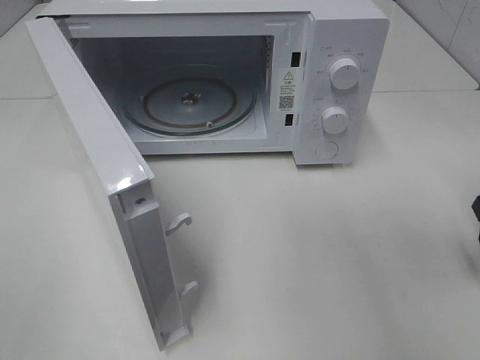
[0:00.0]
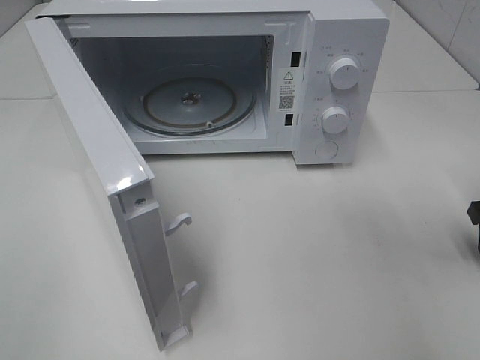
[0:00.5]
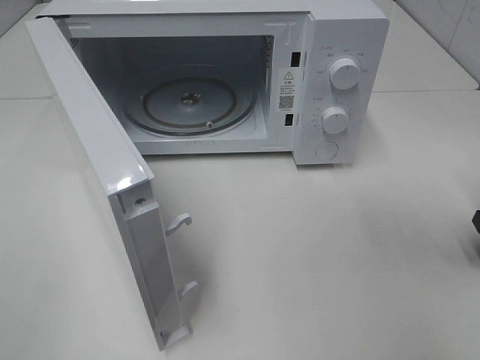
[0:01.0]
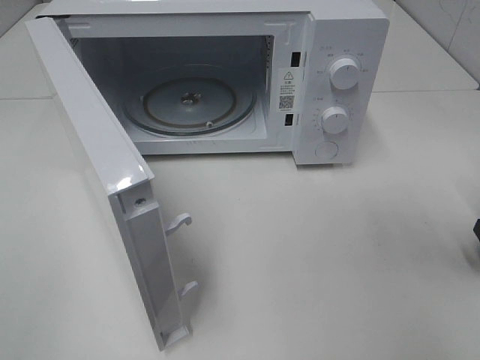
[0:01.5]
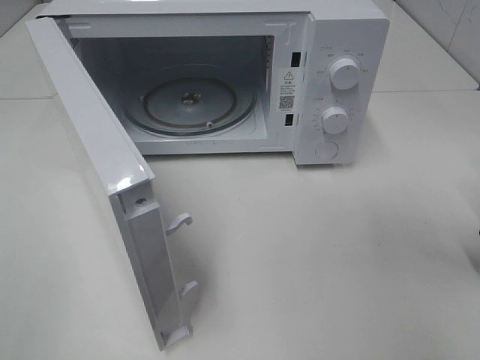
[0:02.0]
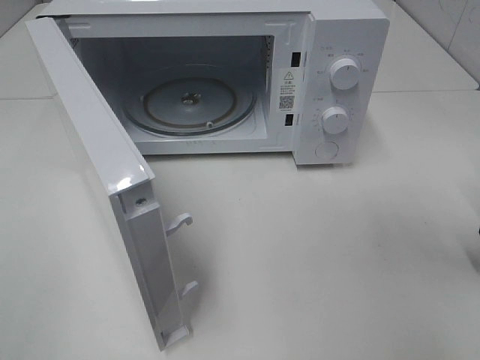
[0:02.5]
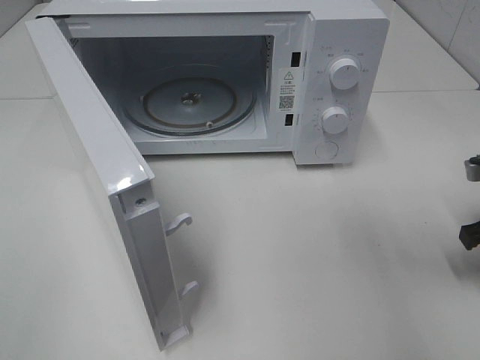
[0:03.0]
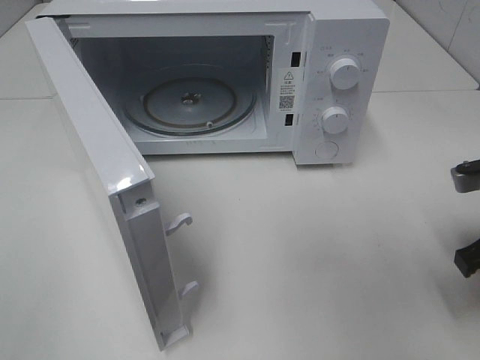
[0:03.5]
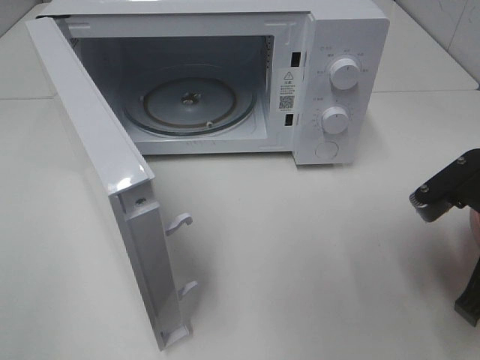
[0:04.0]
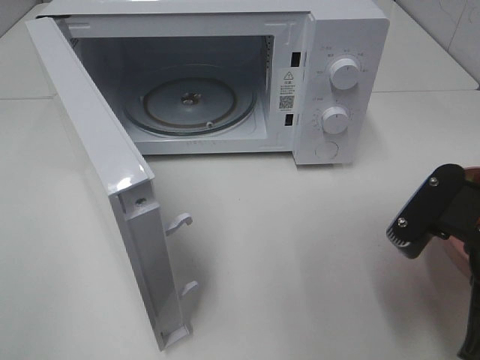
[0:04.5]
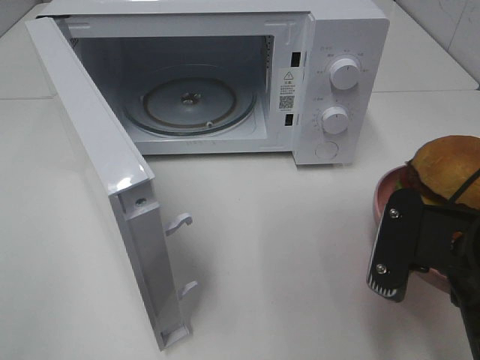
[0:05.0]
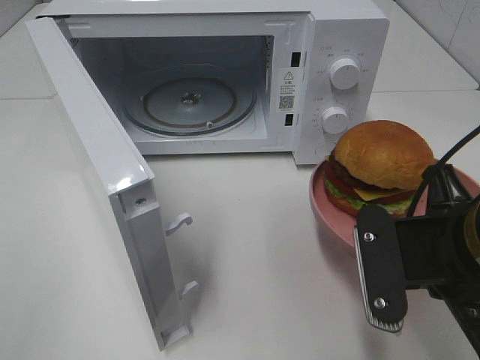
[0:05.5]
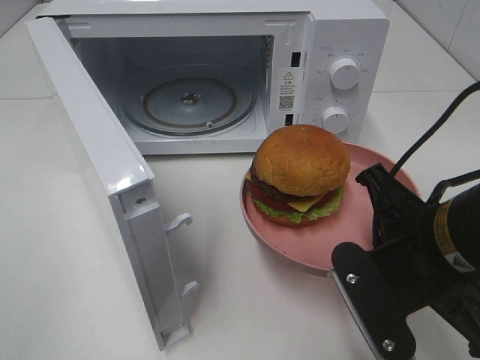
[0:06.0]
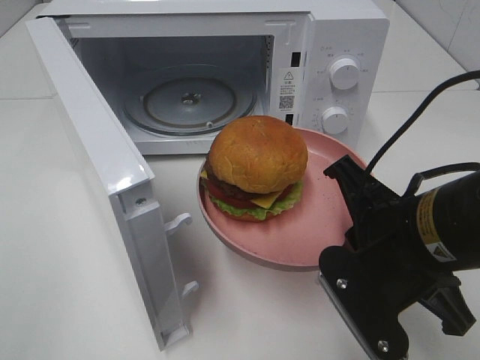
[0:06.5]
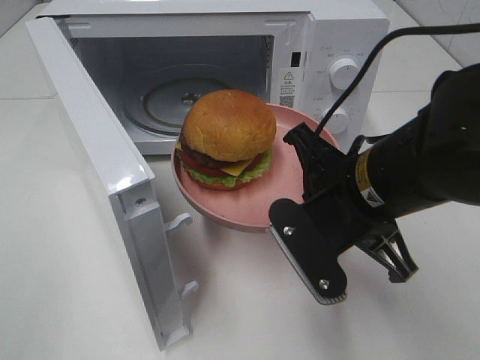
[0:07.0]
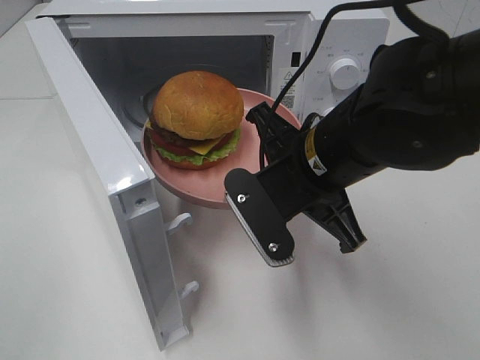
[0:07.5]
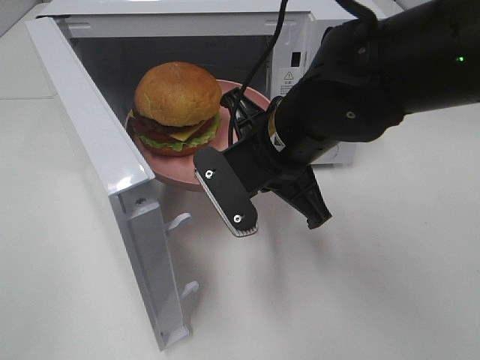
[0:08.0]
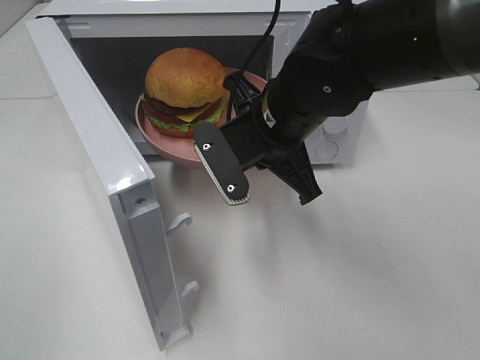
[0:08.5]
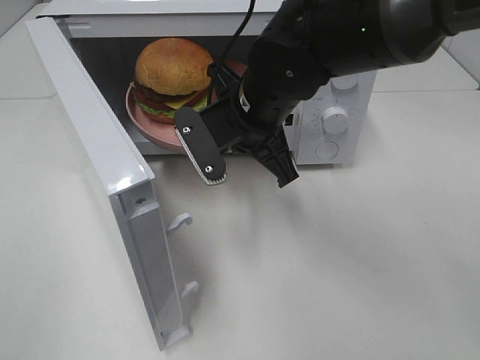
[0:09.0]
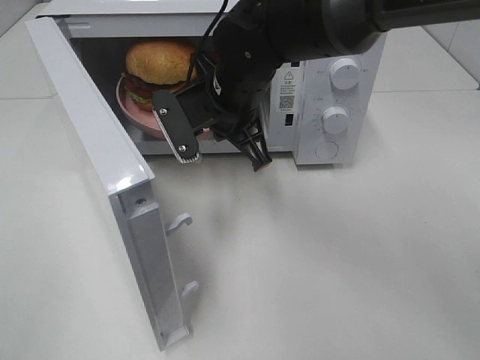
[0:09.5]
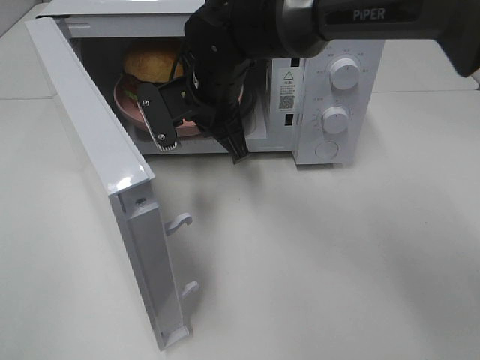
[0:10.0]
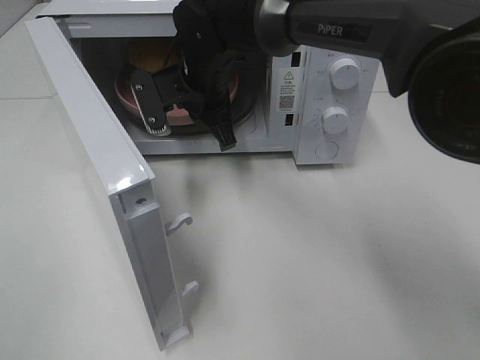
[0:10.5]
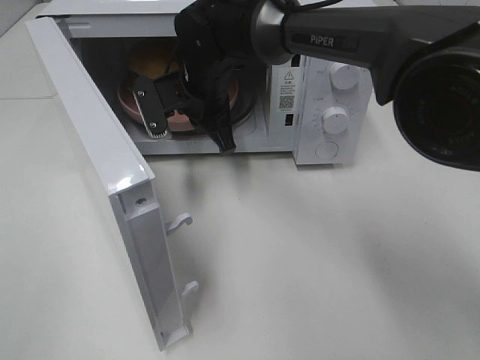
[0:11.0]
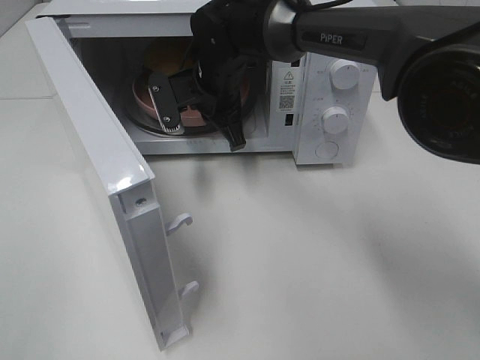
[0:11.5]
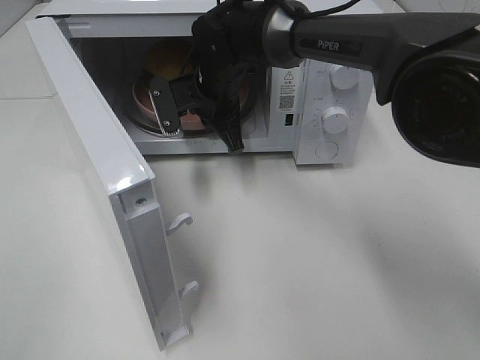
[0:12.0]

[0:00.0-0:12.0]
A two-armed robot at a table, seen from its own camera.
Task of the whole recording: Heat the burger.
0:02.0 to 0:04.0: The right gripper is displaced to the left, backward and upward by roughly 15 cm.
0:04.0 to 0:06.0: The right gripper is displaced to the left by some 10 cm.
0:06.0 to 0:08.0: The right gripper heads forward and to the left, covering roughly 15 cm.
0:08.0 to 0:10.0: The right gripper travels forward and to the left by some 15 cm.
0:10.0 to 0:12.0: The right gripper is displaced forward by approximately 5 cm.

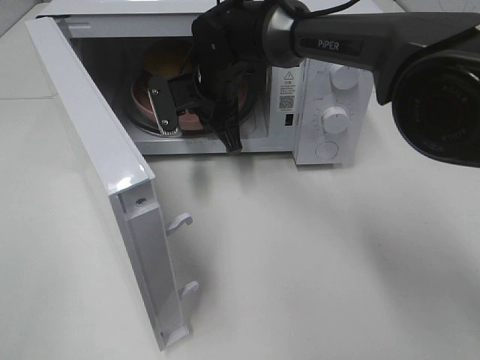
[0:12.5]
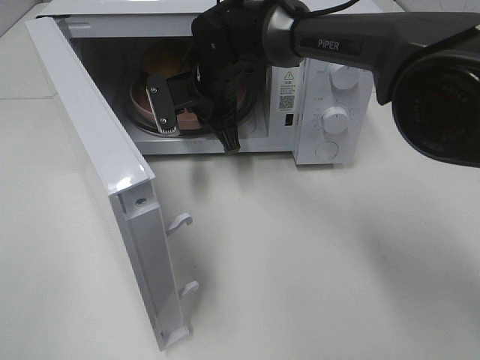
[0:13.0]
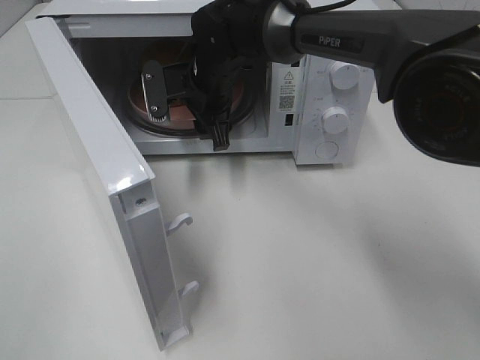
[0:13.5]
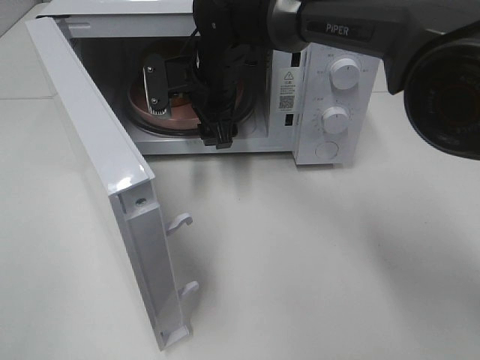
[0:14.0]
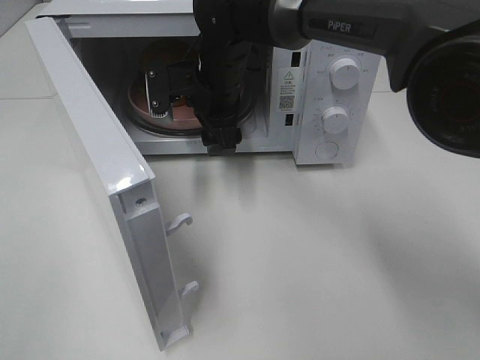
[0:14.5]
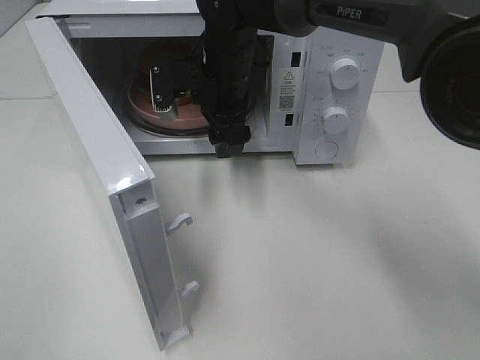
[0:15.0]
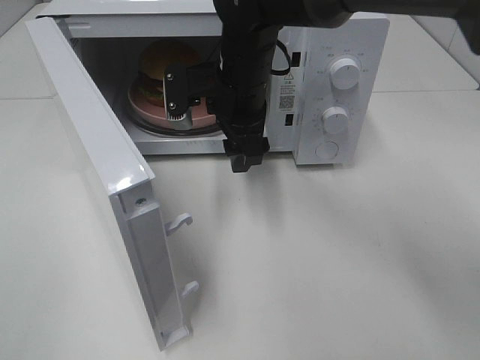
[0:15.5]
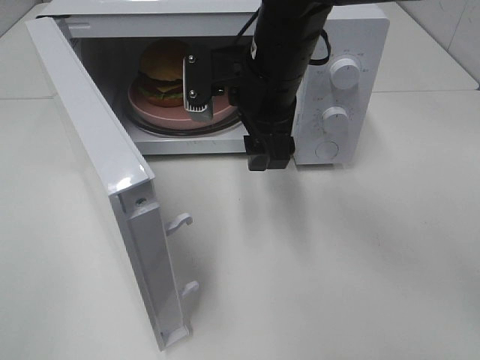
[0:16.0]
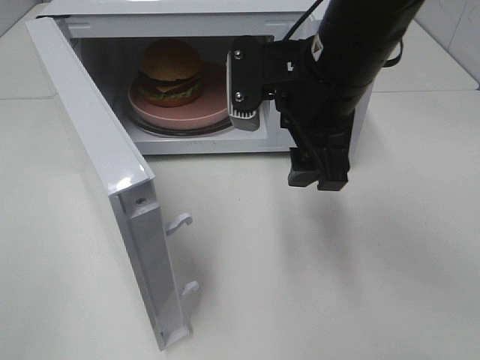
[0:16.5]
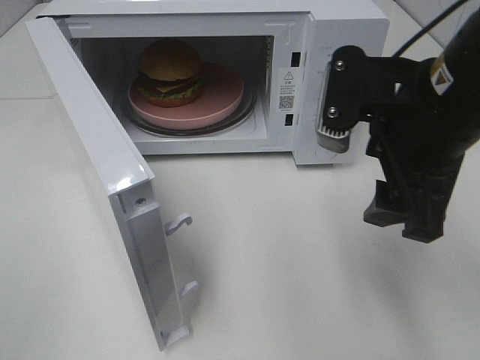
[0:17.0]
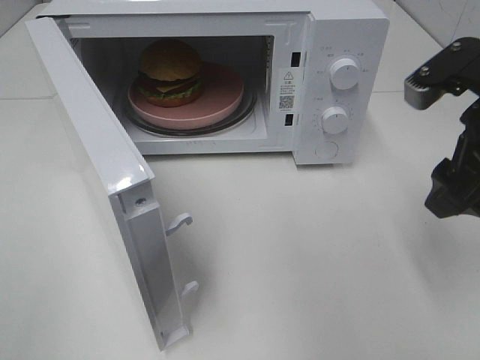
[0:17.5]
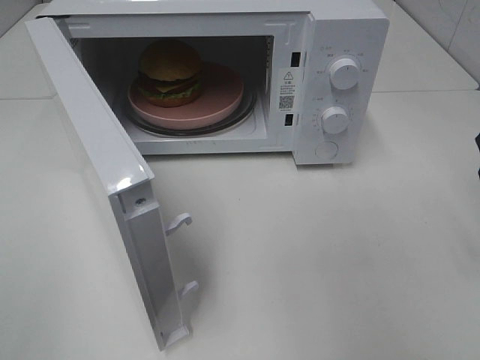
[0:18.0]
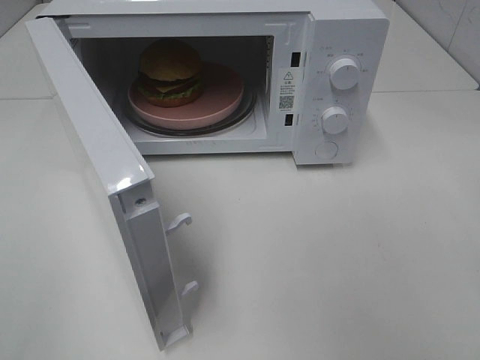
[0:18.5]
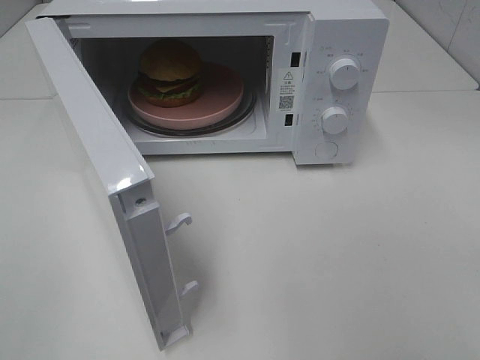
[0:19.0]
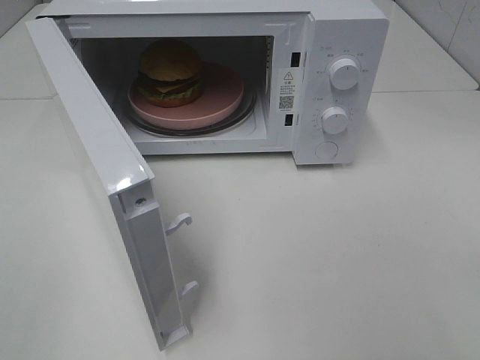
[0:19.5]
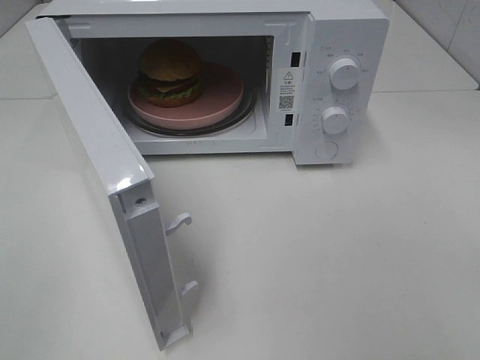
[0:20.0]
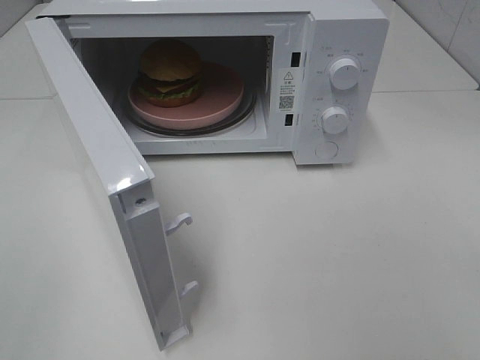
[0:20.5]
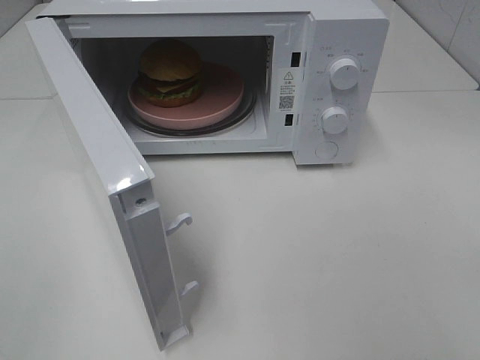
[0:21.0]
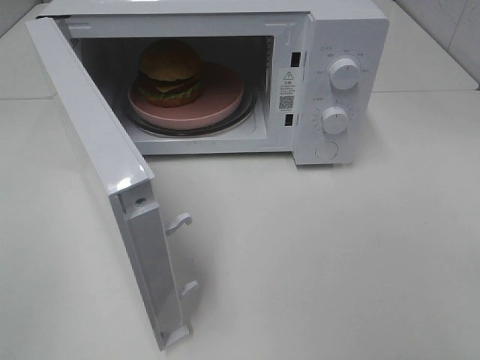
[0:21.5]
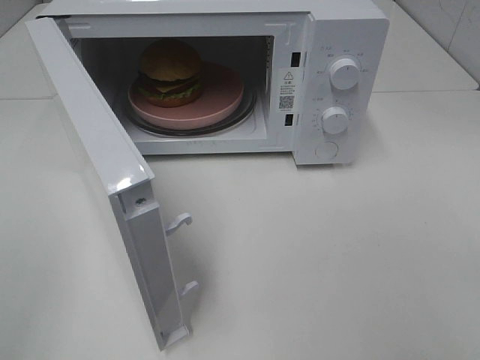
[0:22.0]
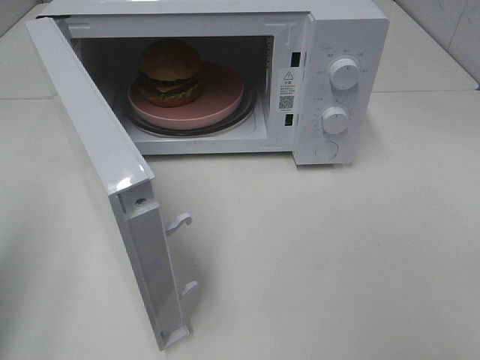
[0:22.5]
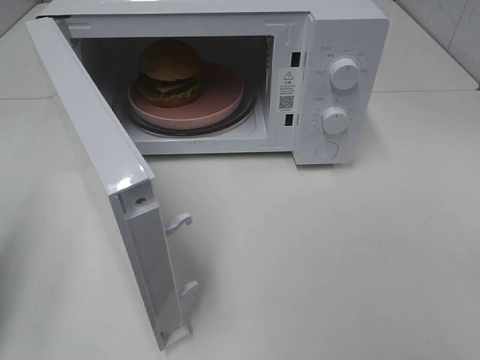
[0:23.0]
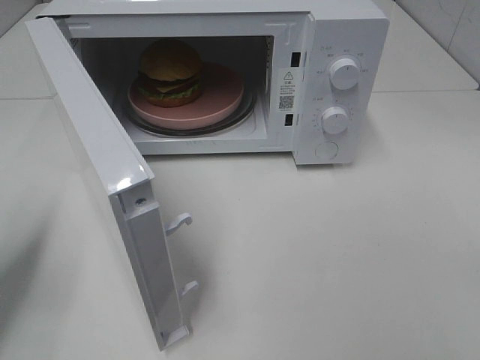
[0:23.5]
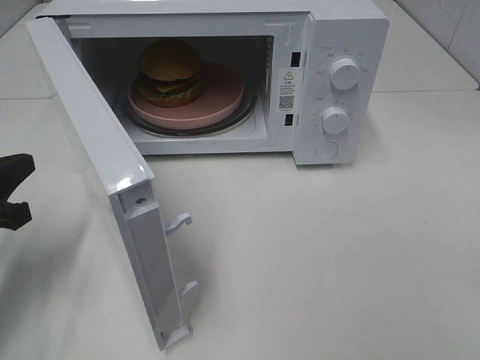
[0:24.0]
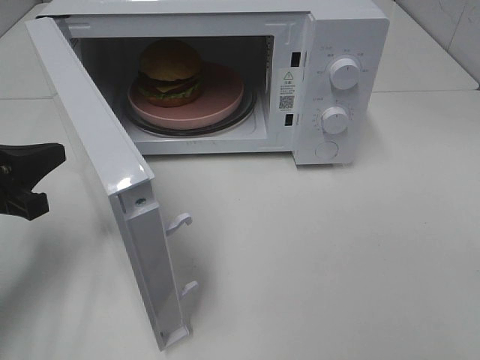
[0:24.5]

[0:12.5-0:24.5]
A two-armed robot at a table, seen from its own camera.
Task of the whole recording: Heat the burger.
0:12.5 to 0:14.5: The right gripper opens up.
0:14.5 to 0:16.5: The right gripper moves backward, to the right and upward, about 20 cm.
0:16.5 to 0:18.5: The right gripper goes about 25 cm to the right and backward.
0:20.5 to 0:22.5: The left gripper shifts approximately 10 cm forward, and closes its fingers.
0:22.5 to 0:24.5: The left gripper goes some 20 cm downward and forward.

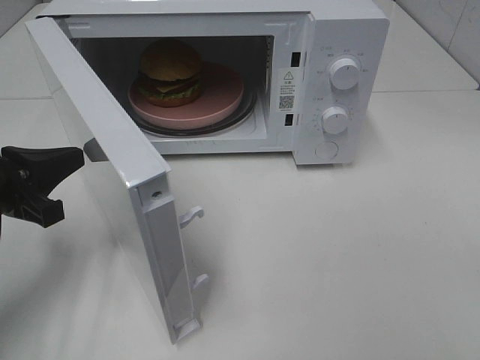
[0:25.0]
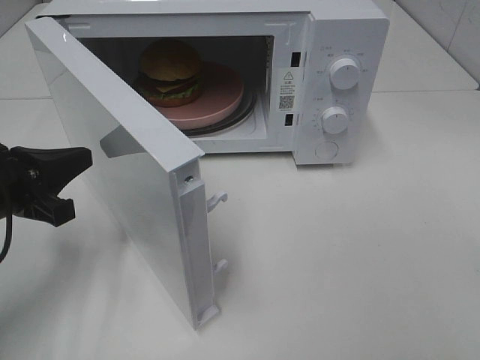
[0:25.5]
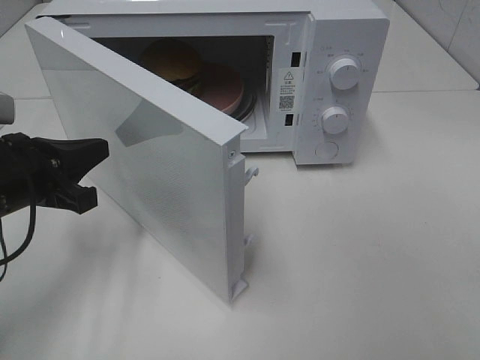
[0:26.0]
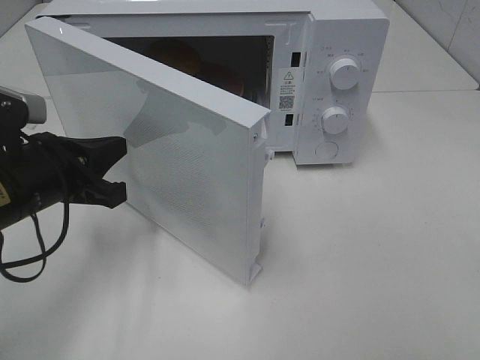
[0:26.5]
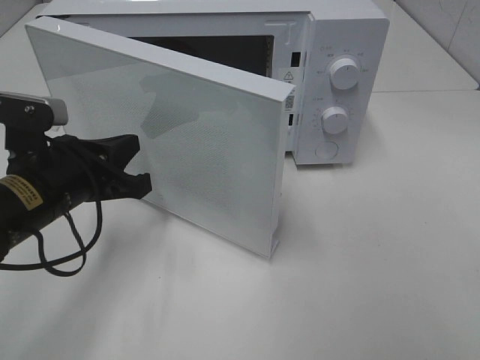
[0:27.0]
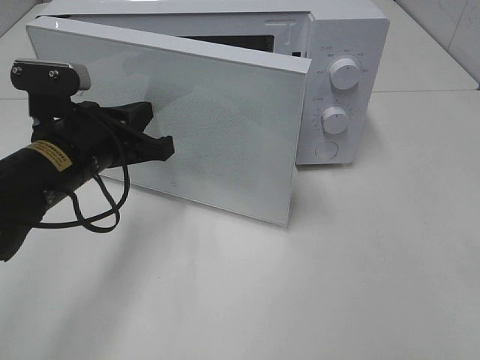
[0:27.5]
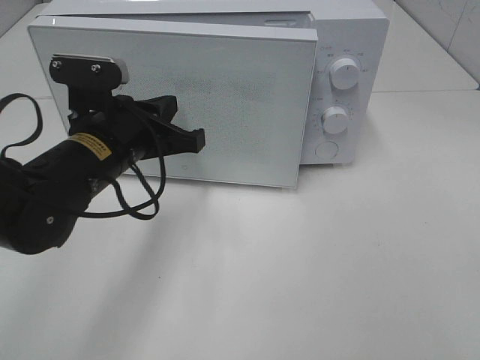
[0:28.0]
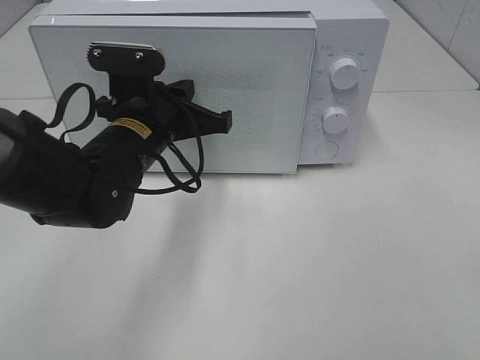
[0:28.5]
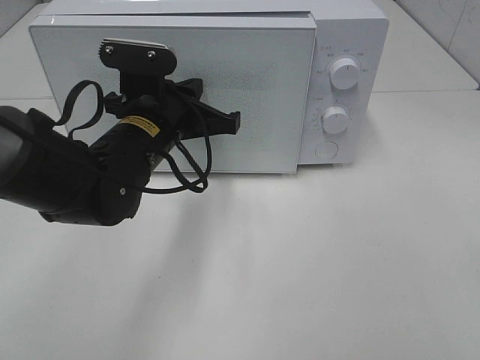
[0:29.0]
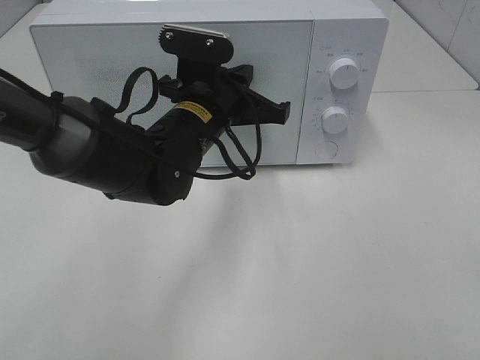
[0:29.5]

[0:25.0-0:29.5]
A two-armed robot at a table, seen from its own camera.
Task of the whole recording: Heat the burger.
0:25.0 to 0:27.0: The left gripper shifts approximately 5 cm to the right.
0:27.0 to 0:29.5: The left gripper heads to the right and forward, covering approximately 15 cm.
